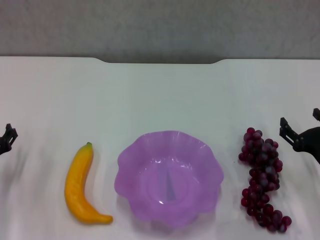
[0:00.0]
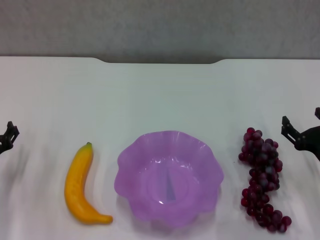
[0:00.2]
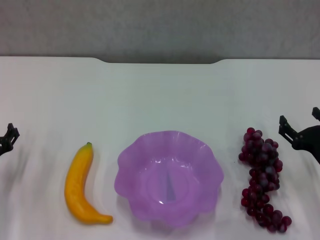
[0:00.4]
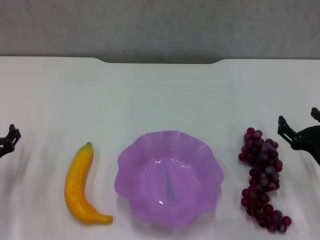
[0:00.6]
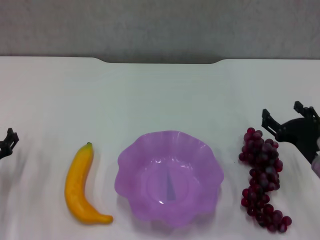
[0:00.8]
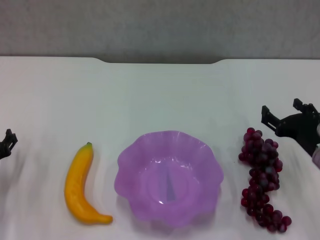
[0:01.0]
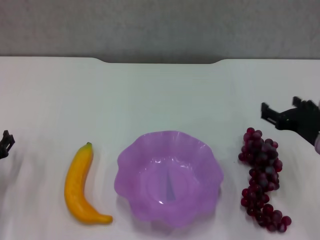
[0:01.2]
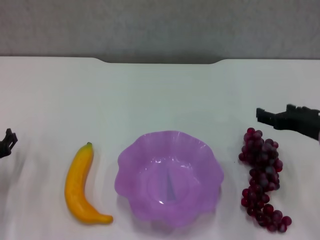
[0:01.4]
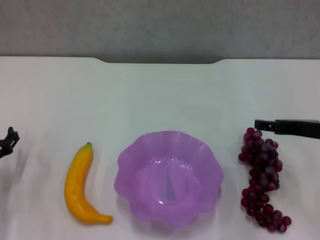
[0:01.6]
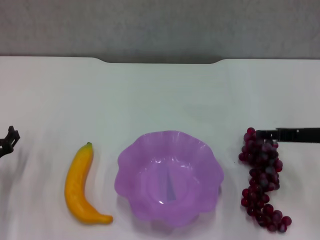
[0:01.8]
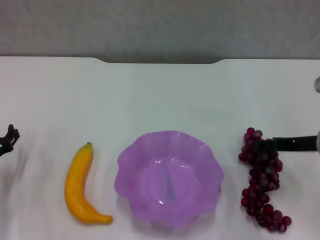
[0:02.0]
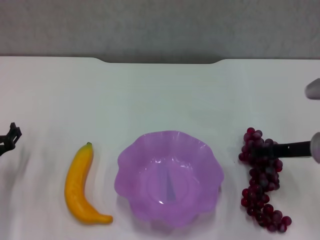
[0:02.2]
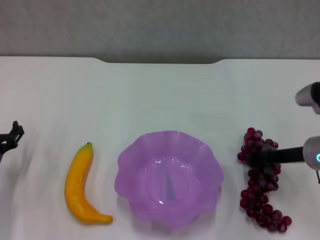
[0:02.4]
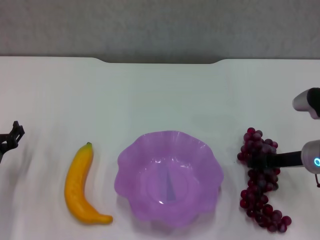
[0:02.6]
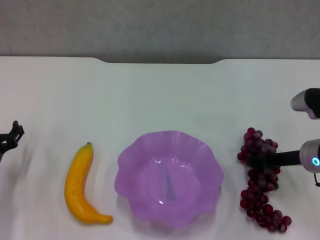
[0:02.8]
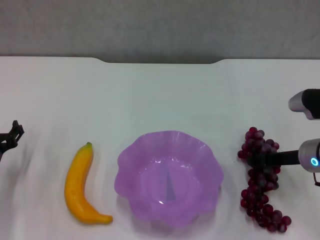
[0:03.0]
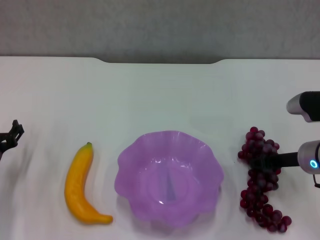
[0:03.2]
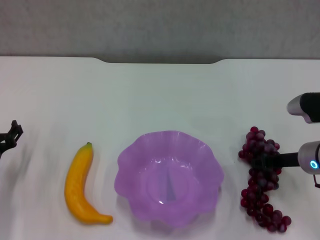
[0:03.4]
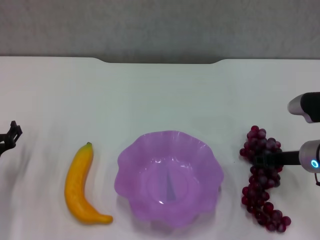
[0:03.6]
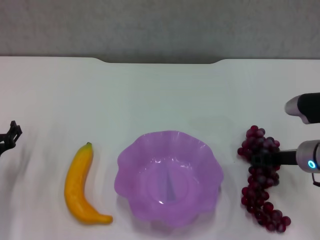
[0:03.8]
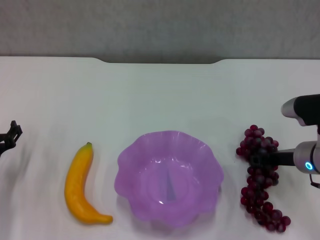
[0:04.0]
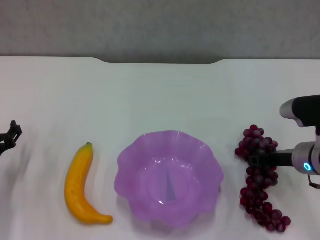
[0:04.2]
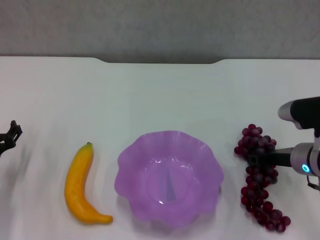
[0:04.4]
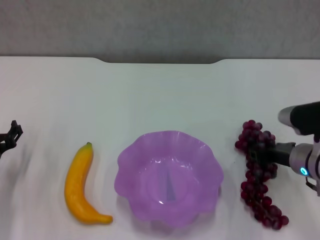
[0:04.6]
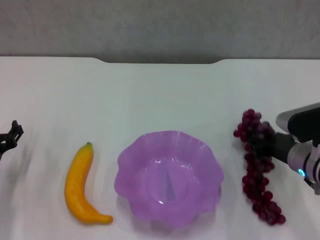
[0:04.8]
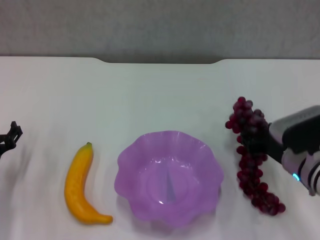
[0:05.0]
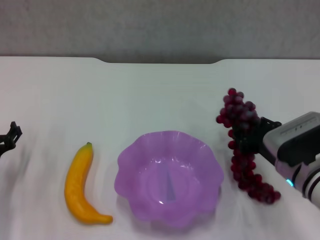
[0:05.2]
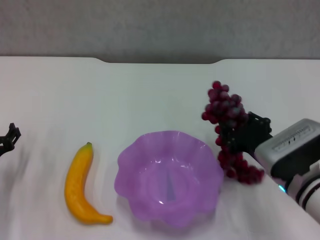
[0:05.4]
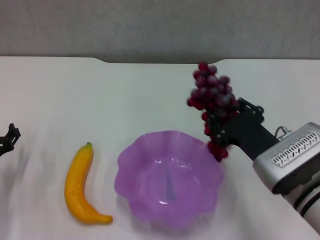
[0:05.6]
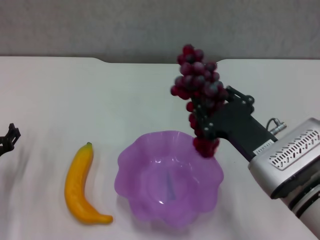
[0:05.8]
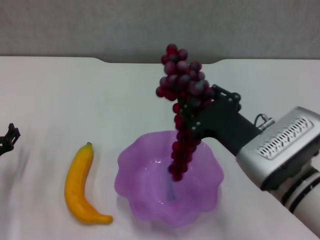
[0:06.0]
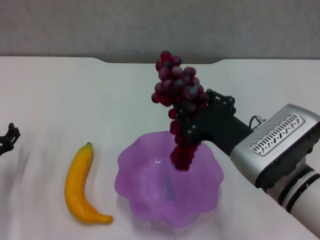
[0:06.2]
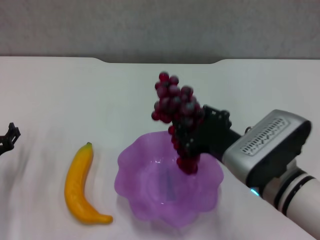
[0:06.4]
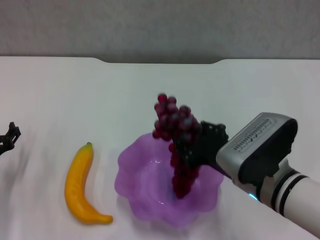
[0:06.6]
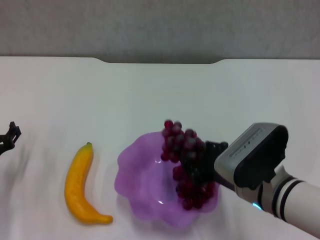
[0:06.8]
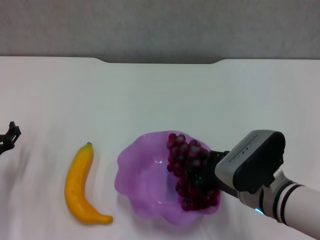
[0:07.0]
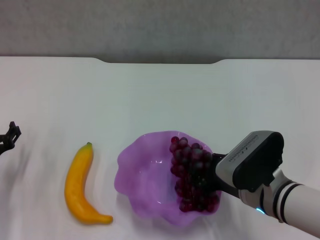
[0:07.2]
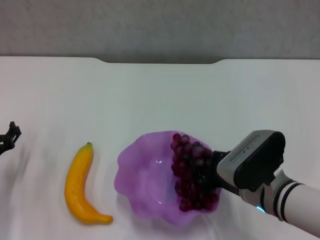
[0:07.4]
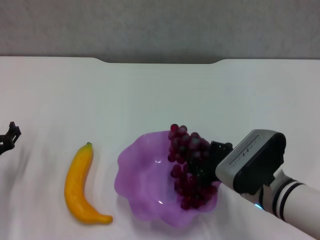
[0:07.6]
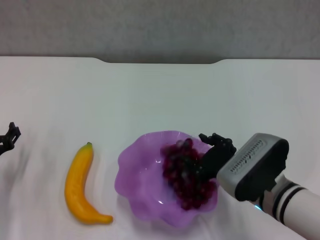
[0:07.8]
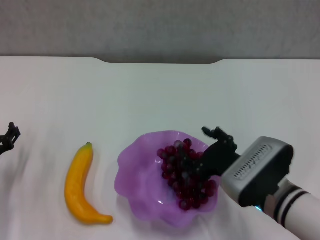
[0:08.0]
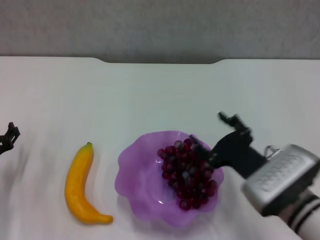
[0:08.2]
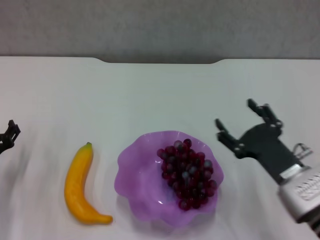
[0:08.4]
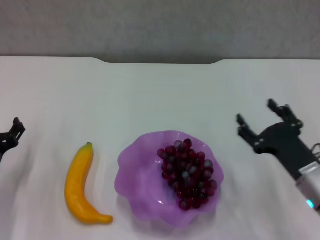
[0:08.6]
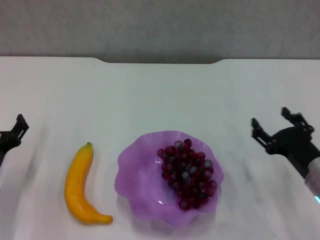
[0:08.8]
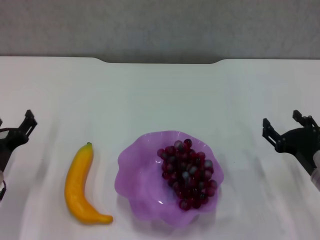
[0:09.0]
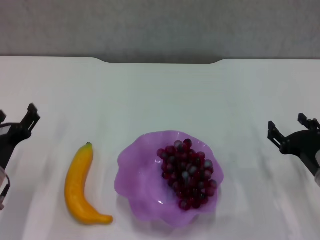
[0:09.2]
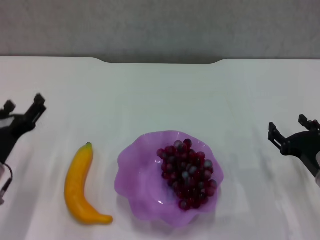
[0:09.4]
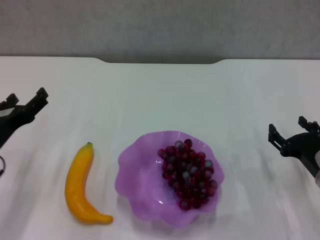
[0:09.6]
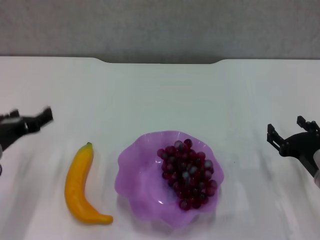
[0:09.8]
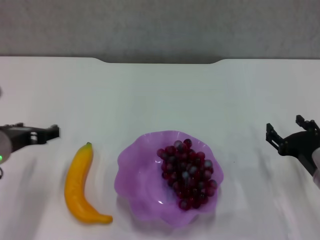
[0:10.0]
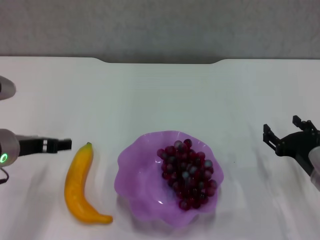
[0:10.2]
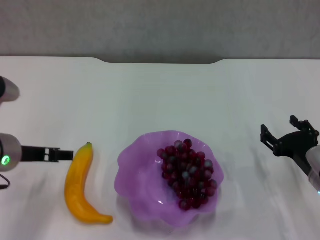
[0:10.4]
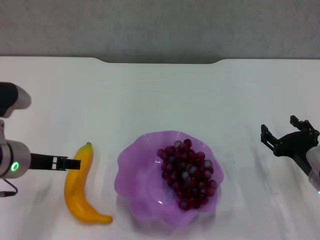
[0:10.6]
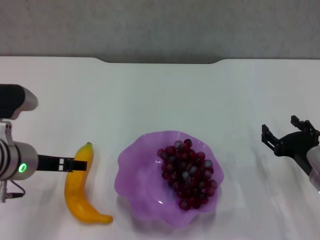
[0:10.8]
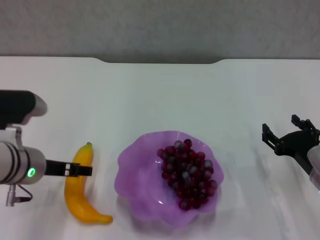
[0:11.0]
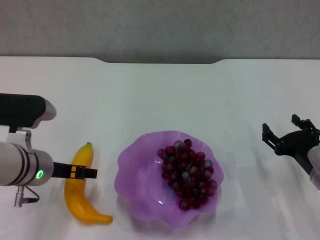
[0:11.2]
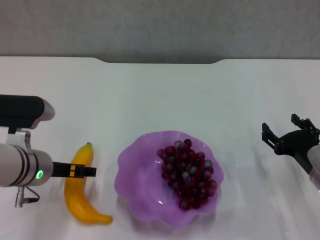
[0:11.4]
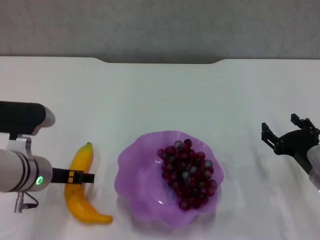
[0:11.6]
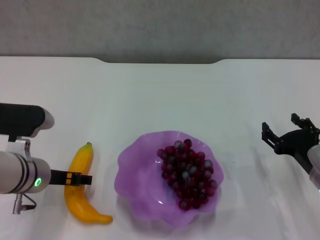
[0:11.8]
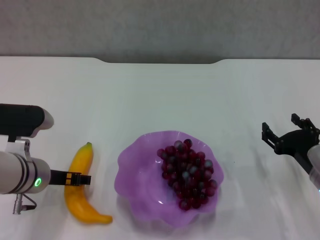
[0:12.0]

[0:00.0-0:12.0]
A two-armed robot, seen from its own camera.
Step, 0.0 to 3.8 s: Grasp the grape with right gripper.
Step, 4.0 to 8.2 s: Place the grape in the purple plate with right gripper.
0.0 to 1.6 s: The right gripper heads upward, covering some 10 cm.
1.6 to 3.0 s: The right gripper goes about 5 cm downward.
3.0 to 4.4 s: The right gripper closes its fingers.
4.4 to 6.0 s: The right gripper goes roughly 15 cm to the left, backward and upward.
6.0 to 7.6 s: The right gripper travels downward by about 5 cm.
7.6 to 9.0 s: The right gripper heads to the right, covering roughly 10 cm, and opens.
9.0 to 10.4 s: The left gripper goes roughly 10 cm upward.
10.4 to 12.0 s: The left gripper shifts roughly 5 cm downward.

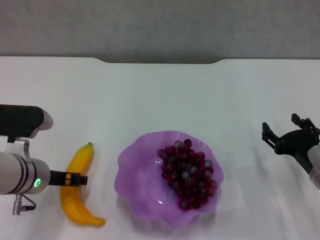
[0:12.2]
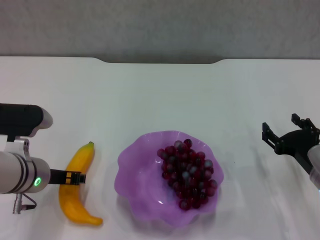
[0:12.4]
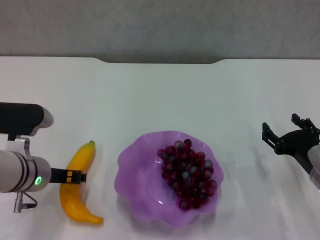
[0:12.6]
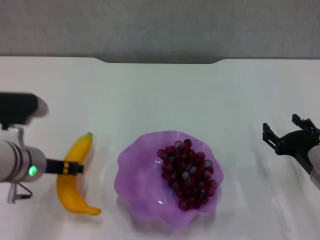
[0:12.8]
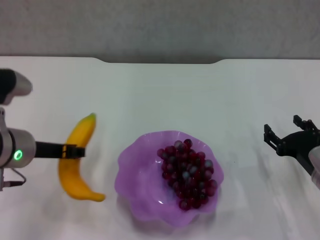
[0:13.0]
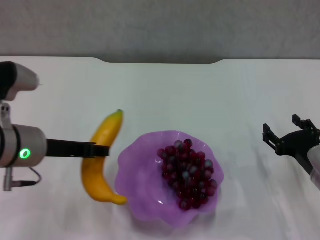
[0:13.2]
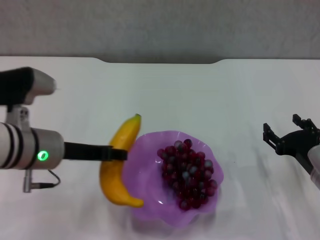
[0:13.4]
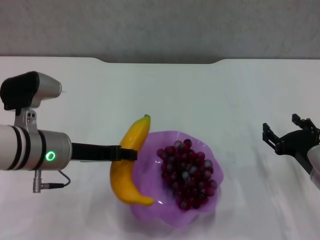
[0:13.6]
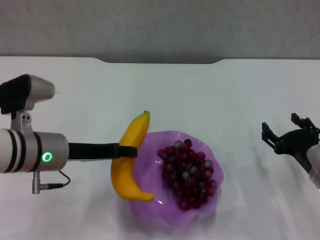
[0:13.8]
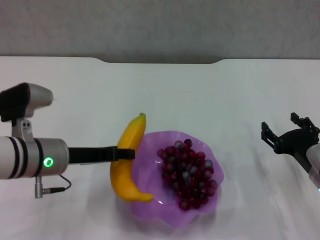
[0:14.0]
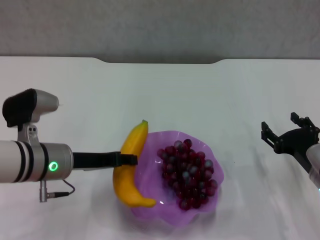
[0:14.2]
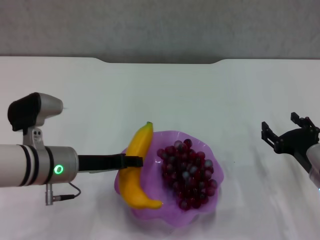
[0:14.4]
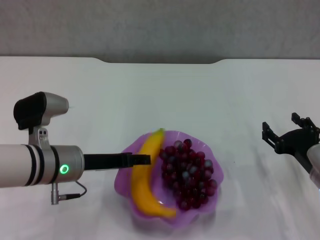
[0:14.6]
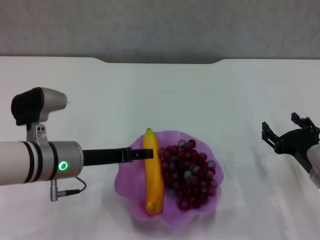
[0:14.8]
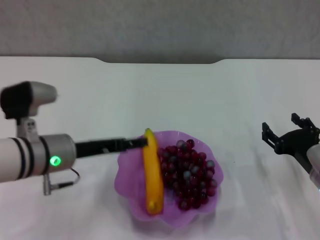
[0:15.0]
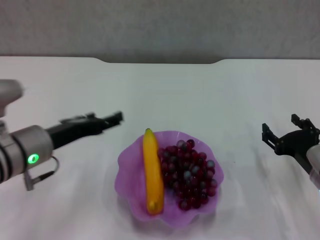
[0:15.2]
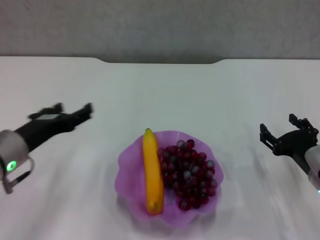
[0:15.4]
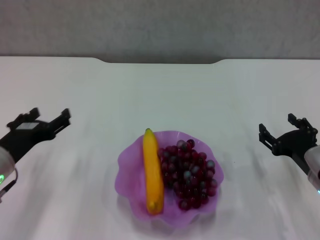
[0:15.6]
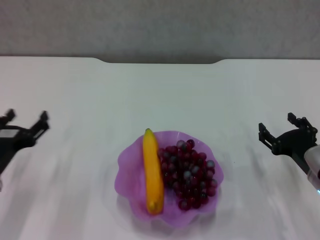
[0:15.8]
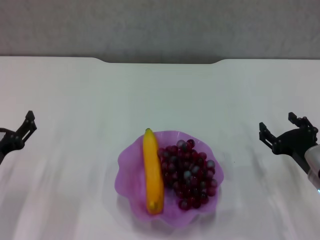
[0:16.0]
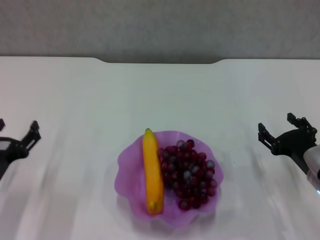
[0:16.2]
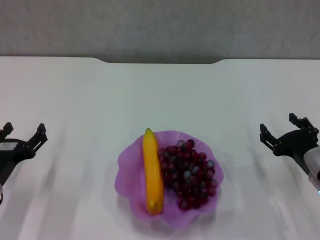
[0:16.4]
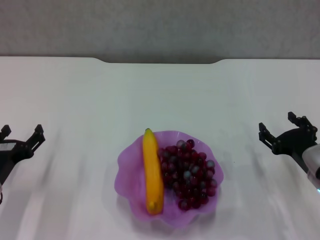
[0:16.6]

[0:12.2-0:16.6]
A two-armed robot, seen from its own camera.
Step, 12.6 to 15.0 s: Place the banana in the purple plate with left gripper.
12.2 to 13.6 s: The left gripper moves about 5 cm, and closes up.
13.6 to 15.2 s: The left gripper opens up.
15.2 to 16.6 s: The left gripper moves downward and to the left, some 10 cm.

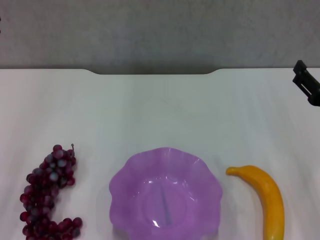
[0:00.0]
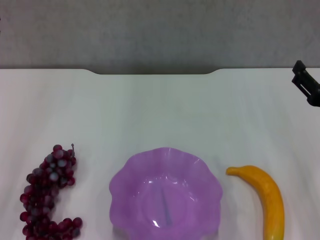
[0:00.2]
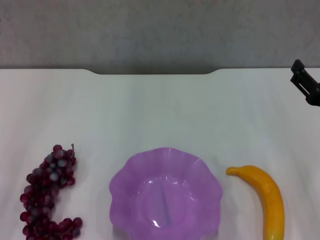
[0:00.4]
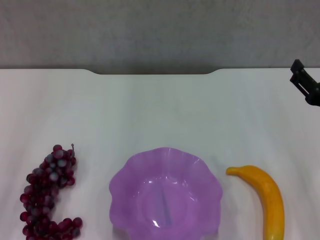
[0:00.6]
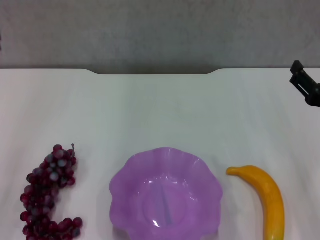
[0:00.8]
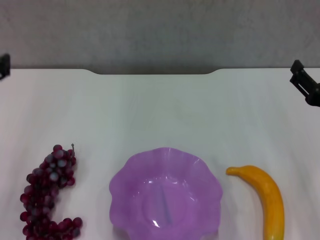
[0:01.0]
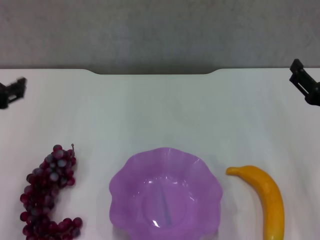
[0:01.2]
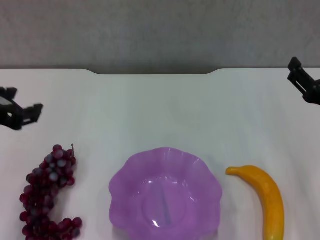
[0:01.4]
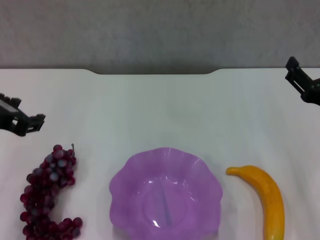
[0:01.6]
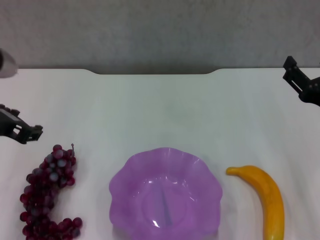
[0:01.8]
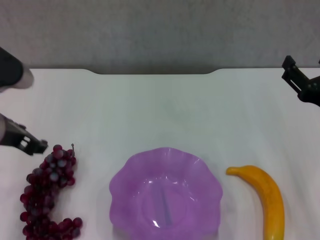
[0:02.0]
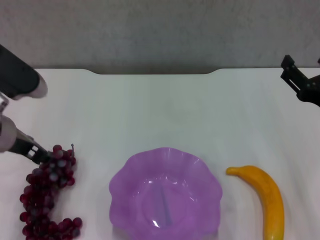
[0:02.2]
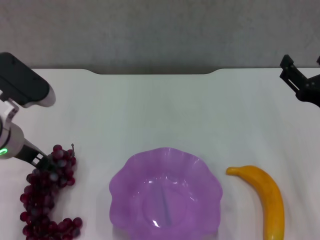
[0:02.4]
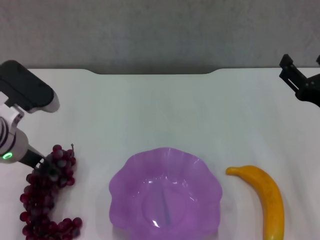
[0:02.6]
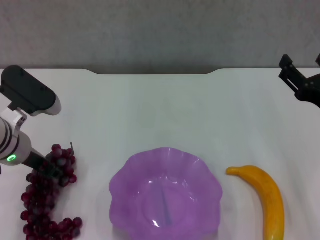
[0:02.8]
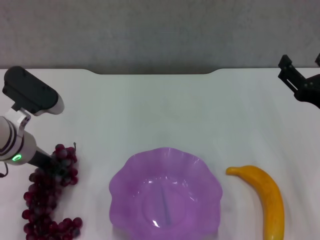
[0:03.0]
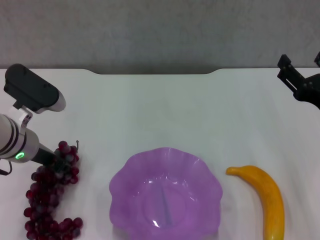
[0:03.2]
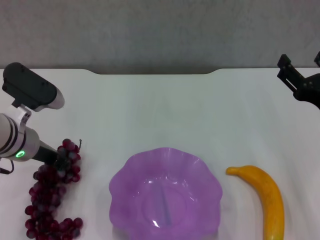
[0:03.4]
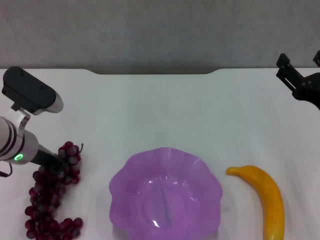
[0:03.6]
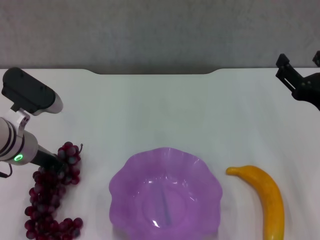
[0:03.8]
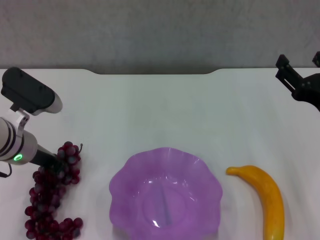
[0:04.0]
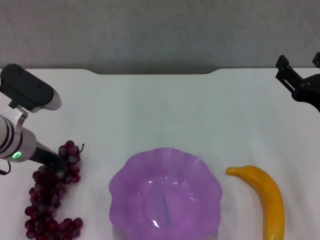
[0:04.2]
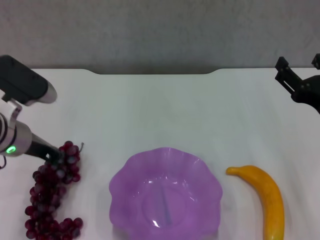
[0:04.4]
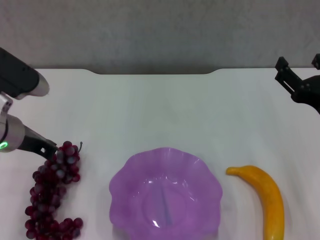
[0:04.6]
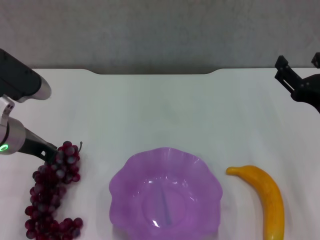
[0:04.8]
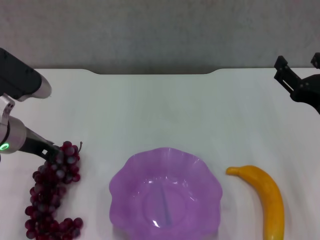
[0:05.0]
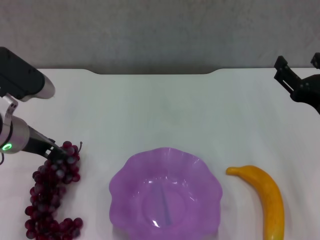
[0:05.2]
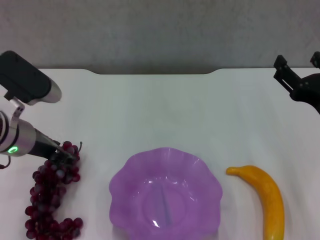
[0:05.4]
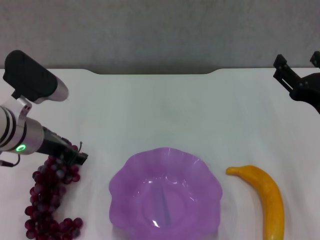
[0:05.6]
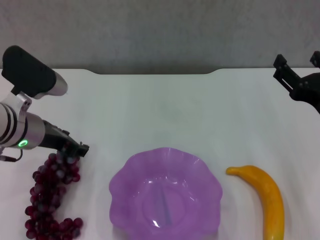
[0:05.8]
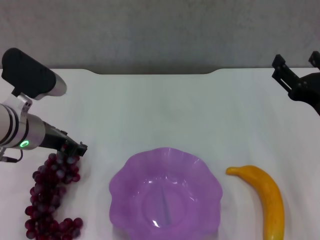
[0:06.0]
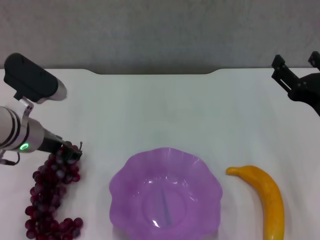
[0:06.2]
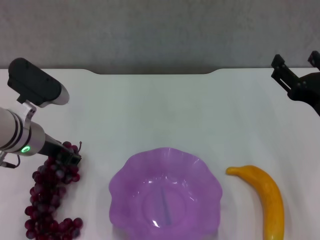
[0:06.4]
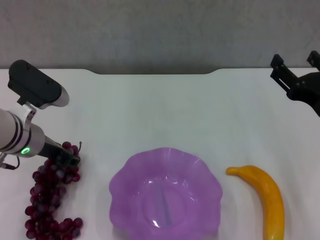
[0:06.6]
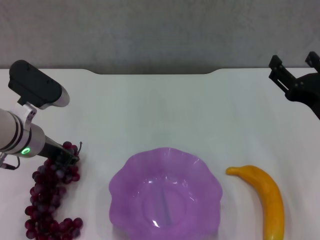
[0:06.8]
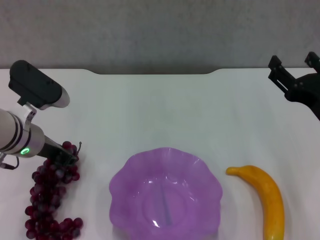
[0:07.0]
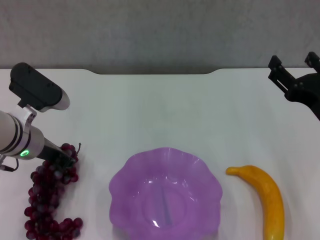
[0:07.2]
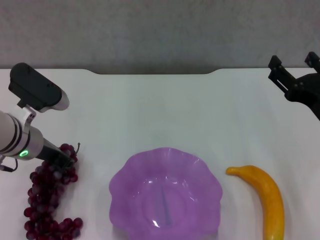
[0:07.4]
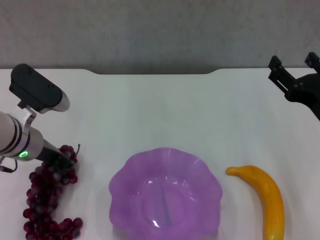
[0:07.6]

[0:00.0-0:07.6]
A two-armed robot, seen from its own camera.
Step, 0.0 to 7.4 s: Grasp the grape with left gripper.
0.0 to 1.6 s: The left gripper shifts by about 5 cm.
1.6 to 3.0 s: The left gripper heads downward and forward, covering about 15 cm.
3.0 to 4.6 s: The left gripper closes up.
4.6 to 6.0 s: The left gripper opens.
6.0 to 7.6 s: The left gripper closes its fingers.
